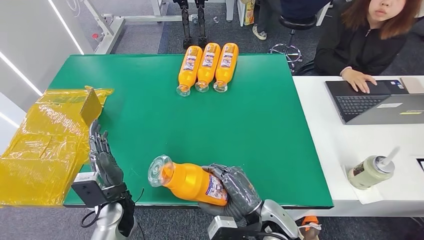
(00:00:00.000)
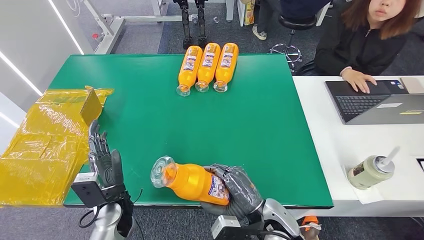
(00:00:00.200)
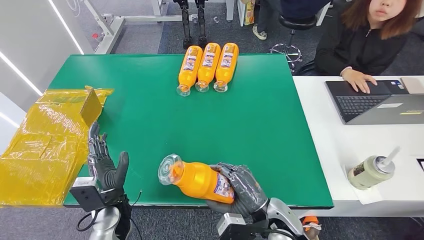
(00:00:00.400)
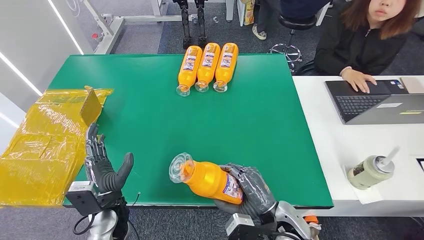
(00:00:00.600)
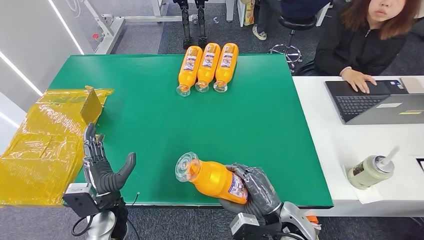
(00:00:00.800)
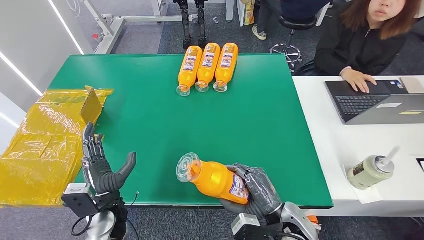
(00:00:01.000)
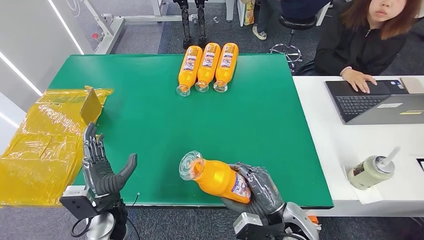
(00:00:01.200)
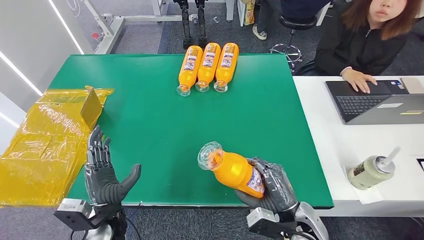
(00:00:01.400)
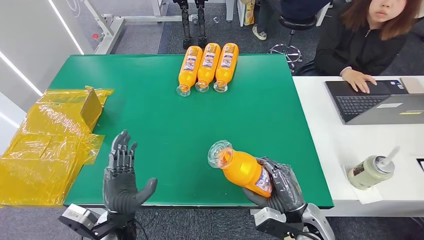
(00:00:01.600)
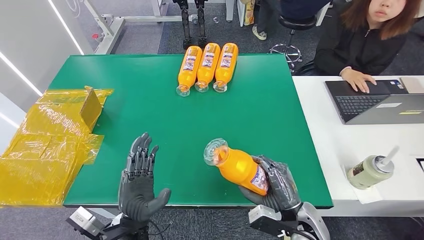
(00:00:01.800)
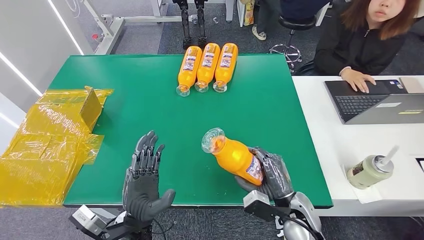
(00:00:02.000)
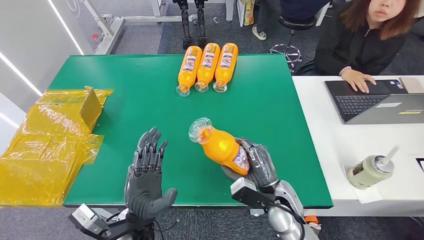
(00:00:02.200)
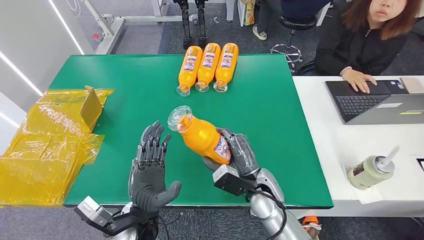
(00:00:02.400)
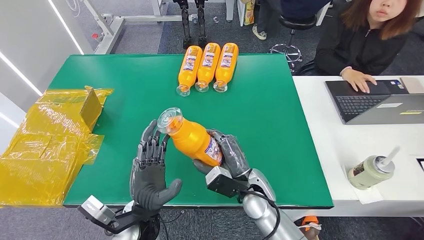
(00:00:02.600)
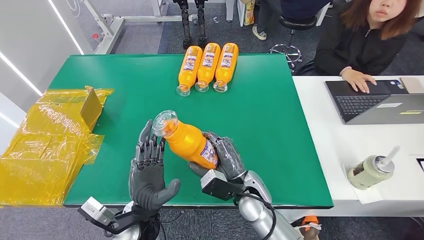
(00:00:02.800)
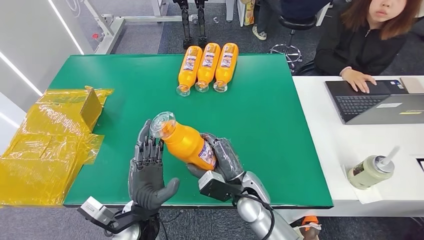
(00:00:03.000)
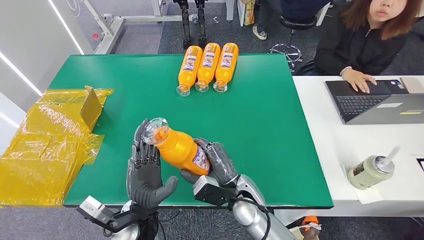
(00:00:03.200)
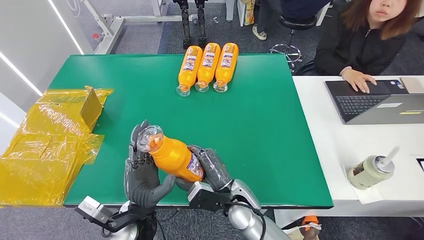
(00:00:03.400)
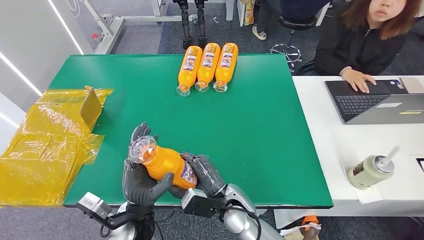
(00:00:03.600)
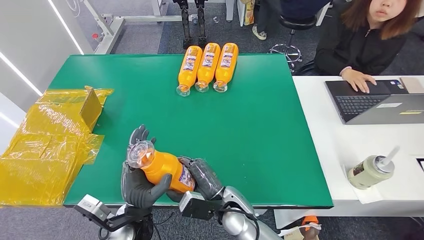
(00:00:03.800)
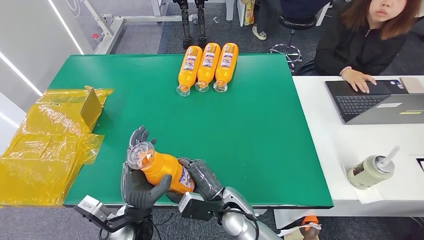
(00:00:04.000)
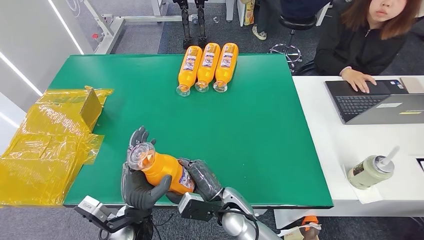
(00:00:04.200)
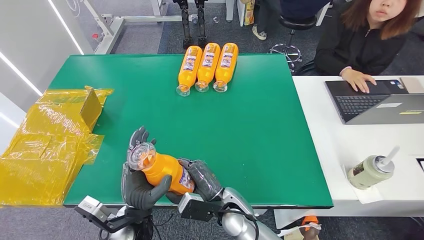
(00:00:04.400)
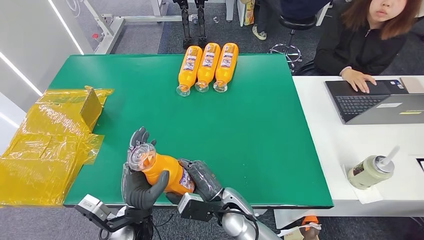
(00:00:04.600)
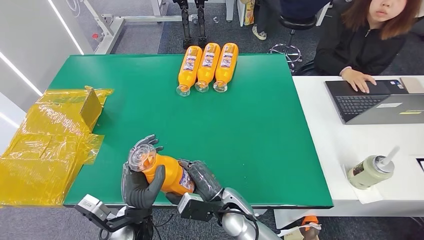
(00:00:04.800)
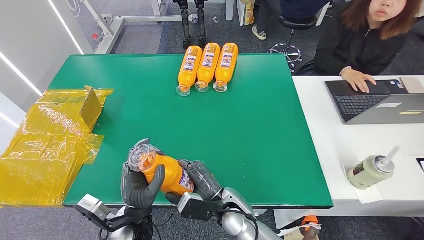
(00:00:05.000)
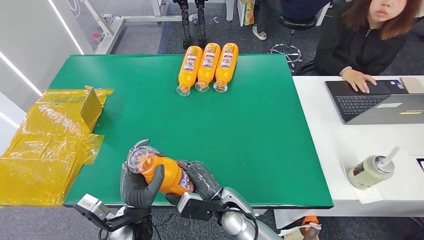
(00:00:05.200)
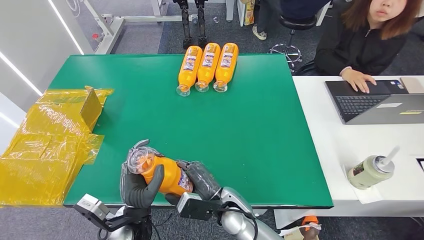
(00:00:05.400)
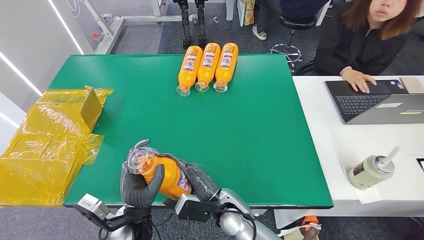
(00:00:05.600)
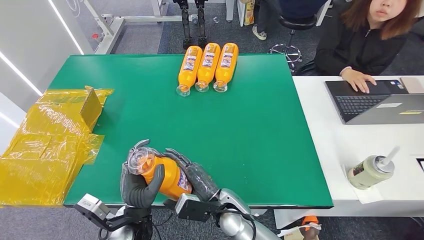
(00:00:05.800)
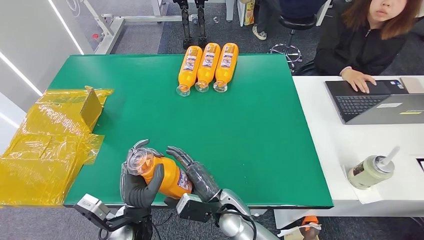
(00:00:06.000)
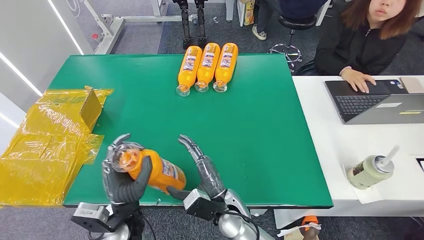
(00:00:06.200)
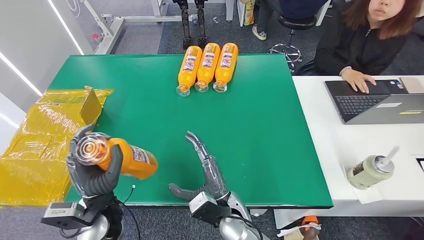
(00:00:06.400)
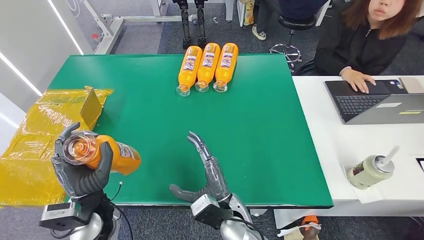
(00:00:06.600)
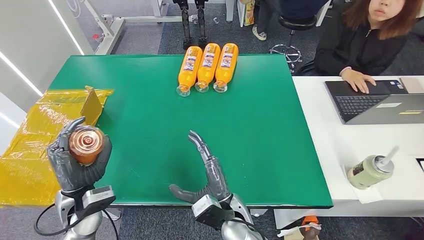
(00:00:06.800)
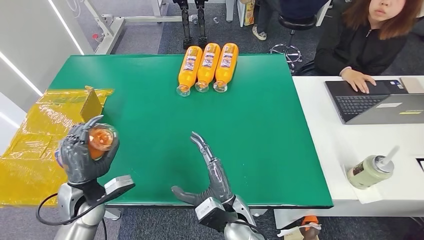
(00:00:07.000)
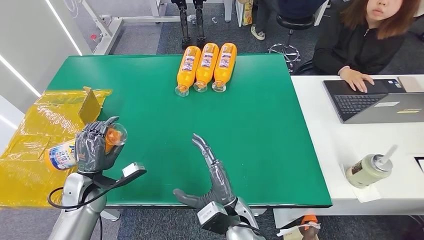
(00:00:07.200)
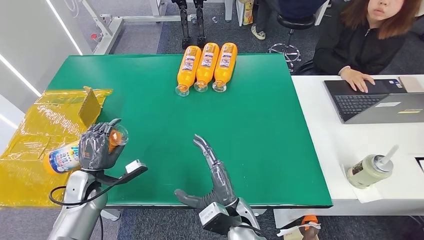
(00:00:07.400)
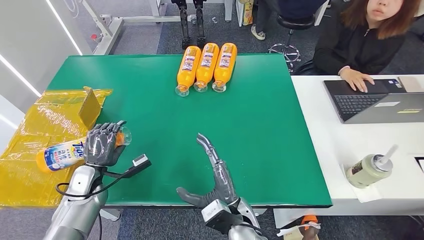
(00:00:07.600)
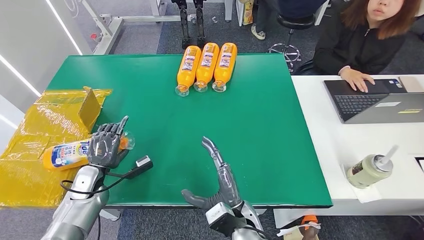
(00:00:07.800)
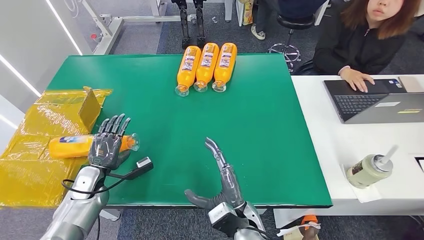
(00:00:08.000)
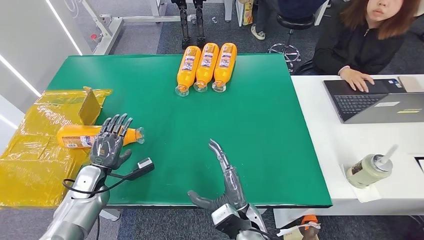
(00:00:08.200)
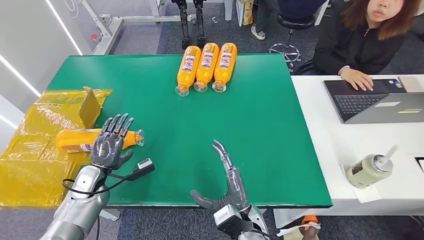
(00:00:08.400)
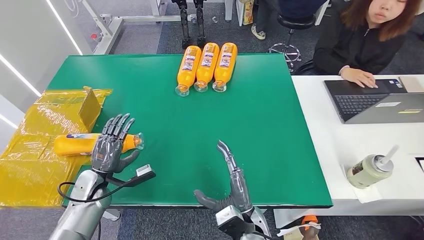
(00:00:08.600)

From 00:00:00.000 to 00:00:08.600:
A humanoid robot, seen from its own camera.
Step, from 00:00:00.000 to 00:00:08.600: Turn the bottle to the front side.
From 00:00:00.000 to 00:00:01.400: The right hand heads to the right, covering some 10 cm.
From 00:00:01.400 to 00:00:02.800: The right hand travels to the left and forward by about 15 cm; the left hand goes roughly 10 cm to the right.
From 00:00:02.800 to 00:00:04.400: The right hand moves about 5 cm.
From 00:00:04.400 to 00:00:05.800: Neither hand changes place.
From 00:00:05.800 to 00:00:07.200: The left hand shifts roughly 20 cm to the left and forward.

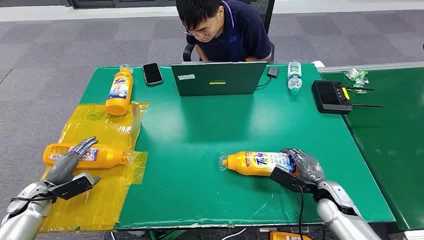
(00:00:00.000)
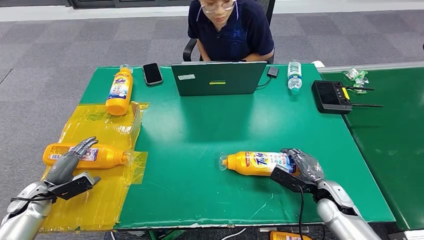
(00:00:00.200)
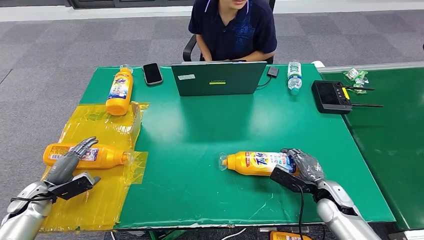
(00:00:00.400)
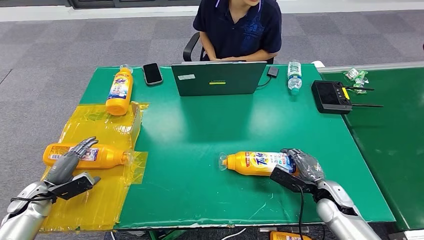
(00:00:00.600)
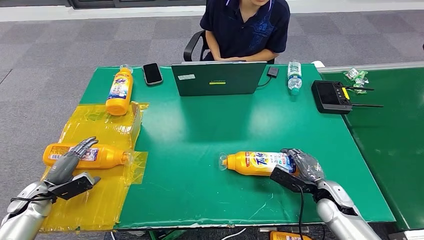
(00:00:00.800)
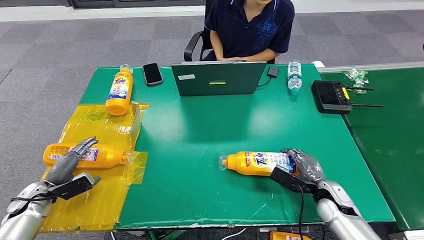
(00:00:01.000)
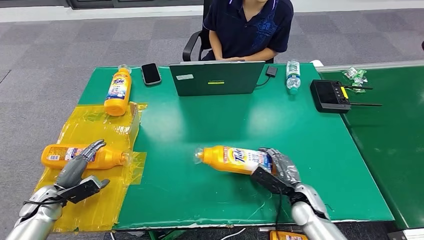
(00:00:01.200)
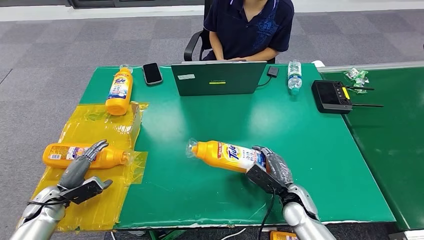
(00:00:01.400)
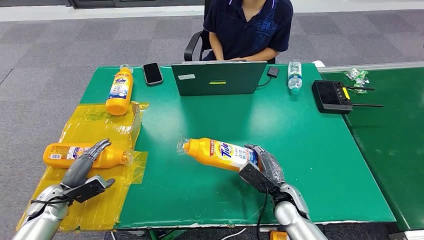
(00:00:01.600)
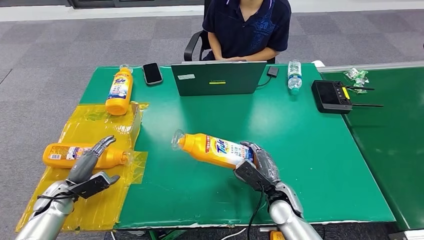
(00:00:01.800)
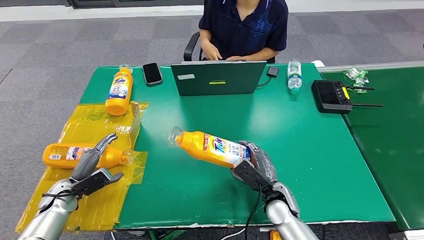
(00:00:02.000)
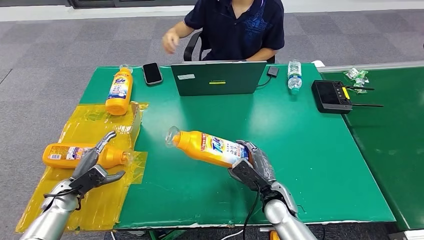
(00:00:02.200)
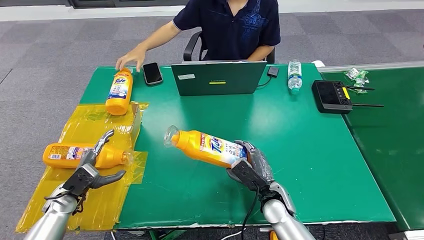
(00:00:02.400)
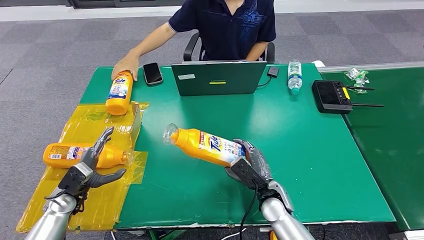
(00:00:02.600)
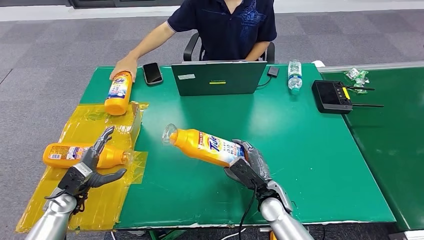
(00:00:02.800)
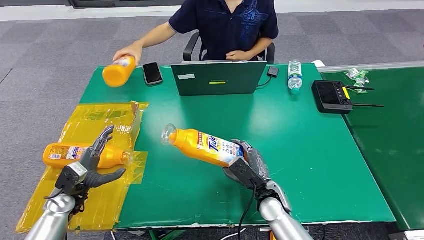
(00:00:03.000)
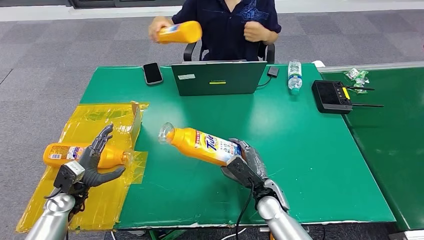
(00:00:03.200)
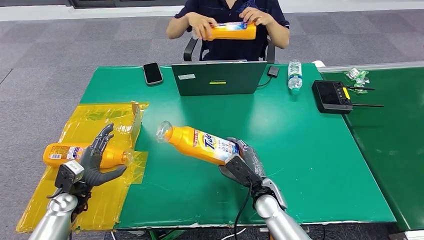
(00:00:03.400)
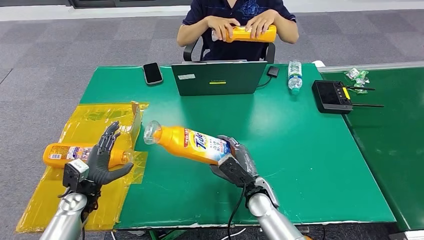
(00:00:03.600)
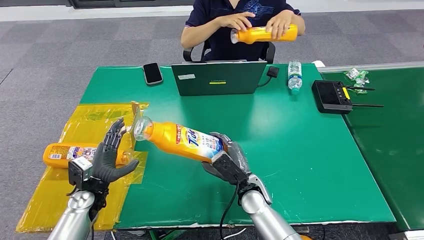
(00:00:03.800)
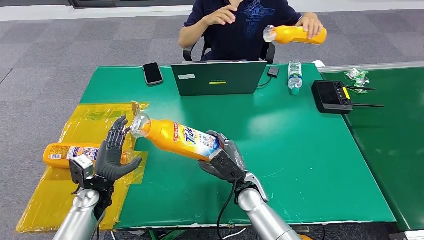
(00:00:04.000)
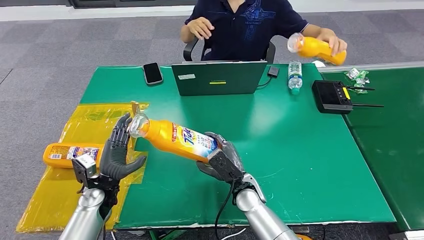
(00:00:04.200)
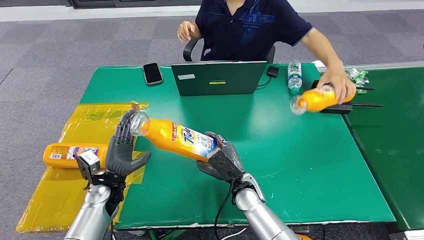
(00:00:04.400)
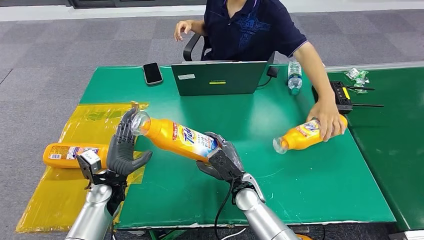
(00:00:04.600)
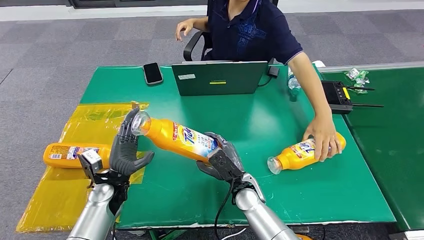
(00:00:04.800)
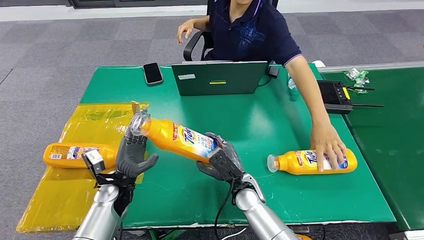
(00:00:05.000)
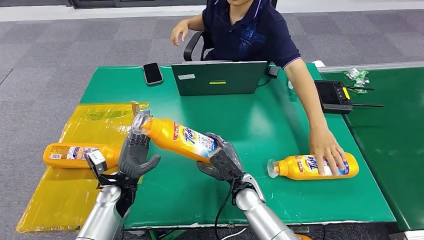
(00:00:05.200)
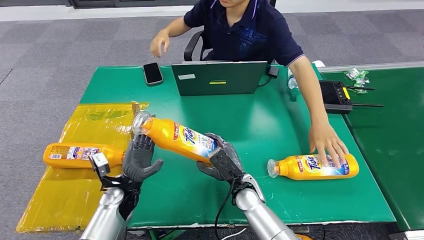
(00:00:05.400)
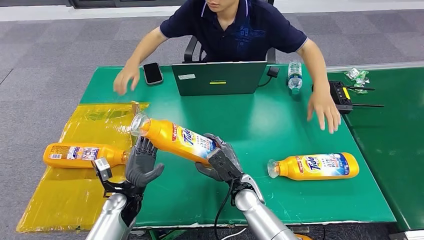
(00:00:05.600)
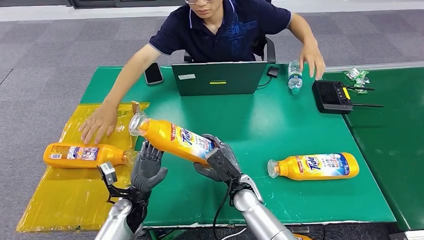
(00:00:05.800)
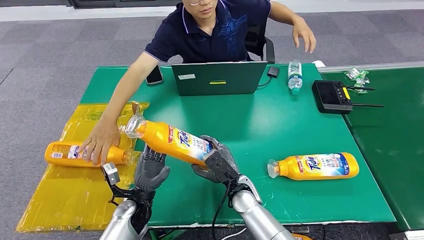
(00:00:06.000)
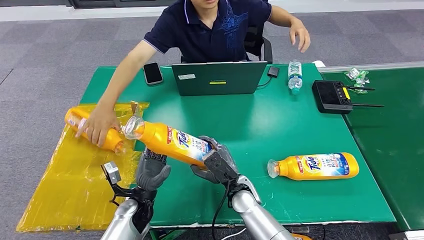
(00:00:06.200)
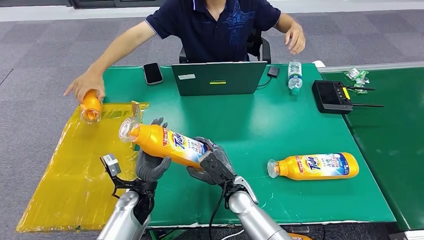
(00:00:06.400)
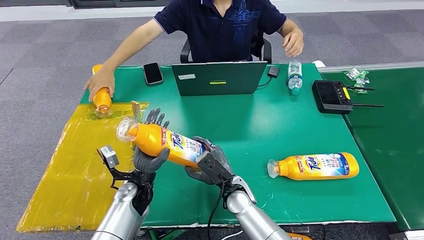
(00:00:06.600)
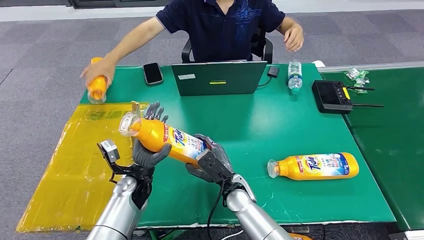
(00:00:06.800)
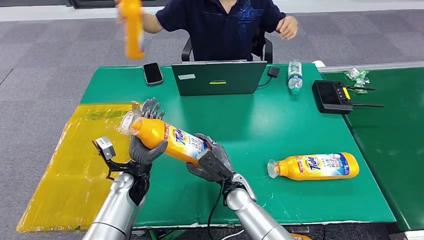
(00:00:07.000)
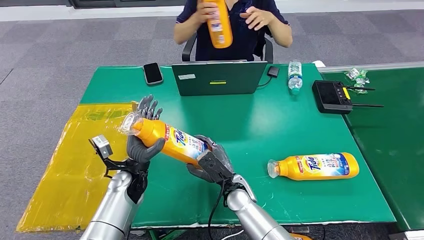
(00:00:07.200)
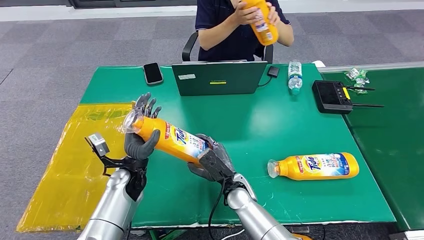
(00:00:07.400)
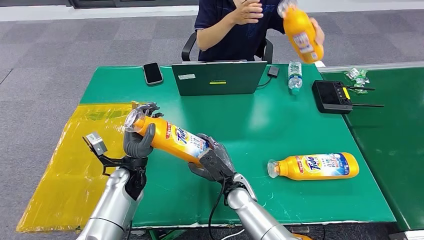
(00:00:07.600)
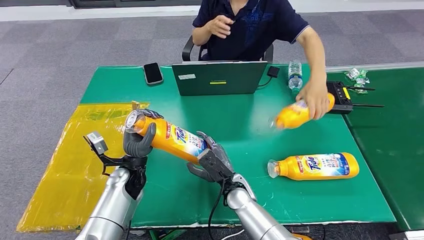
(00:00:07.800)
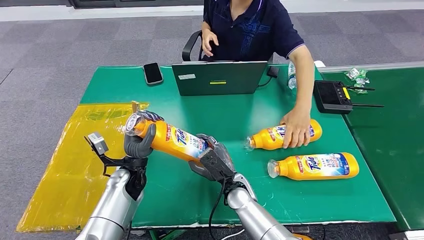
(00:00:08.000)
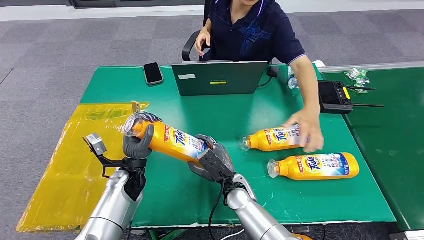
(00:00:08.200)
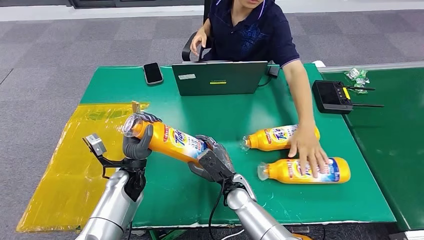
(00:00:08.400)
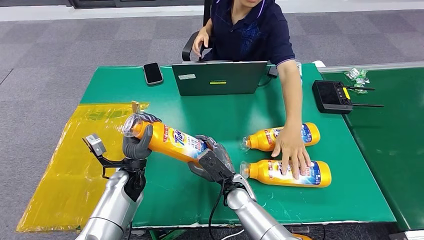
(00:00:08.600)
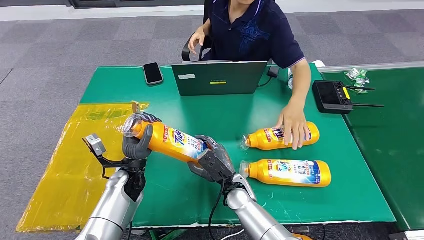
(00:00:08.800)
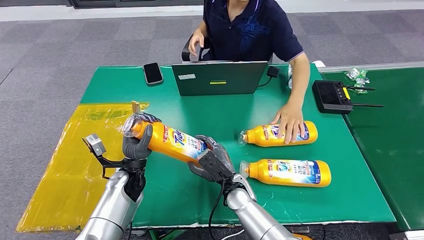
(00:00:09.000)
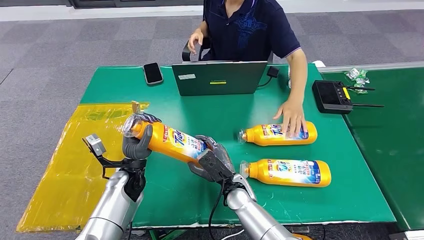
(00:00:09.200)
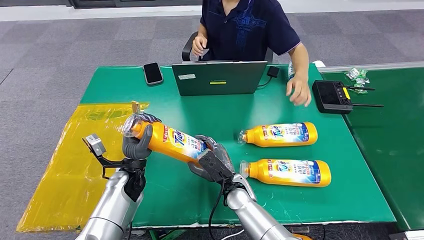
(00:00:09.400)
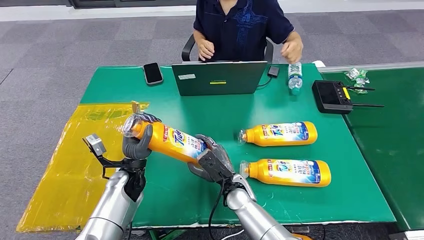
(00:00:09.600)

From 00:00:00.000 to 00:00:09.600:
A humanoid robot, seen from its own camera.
Step, from 00:00:00.000 to 00:00:01.800: Pick up the bottle from the table.
From 00:00:01.600 to 00:00:03.200: The left hand goes some 5 cm to the right. Meanwhile the right hand travels to the left by approximately 5 cm.
From 00:00:08.000 to 00:00:09.600: Both hands stay about where they are.
